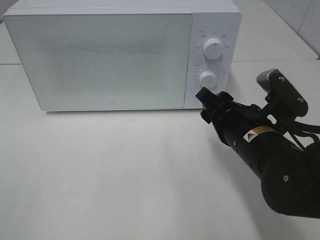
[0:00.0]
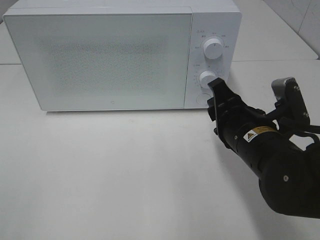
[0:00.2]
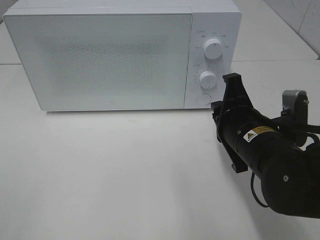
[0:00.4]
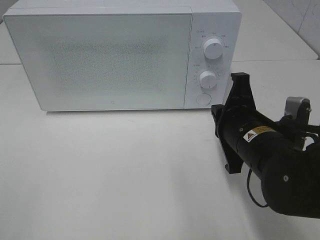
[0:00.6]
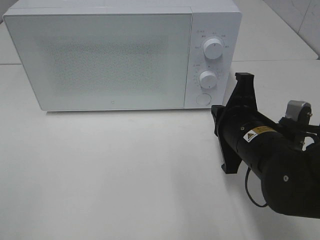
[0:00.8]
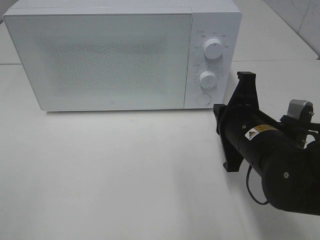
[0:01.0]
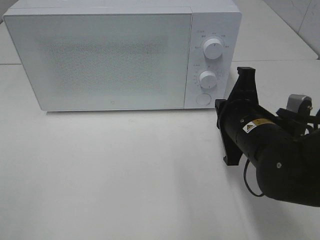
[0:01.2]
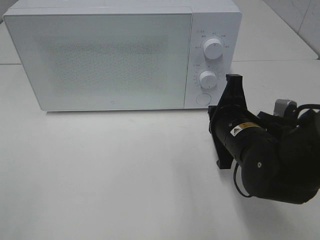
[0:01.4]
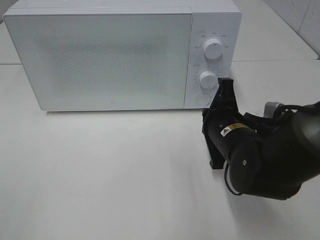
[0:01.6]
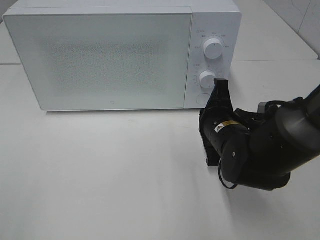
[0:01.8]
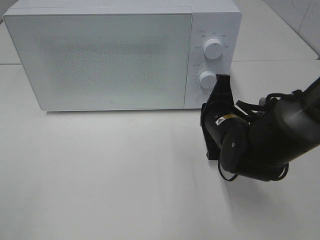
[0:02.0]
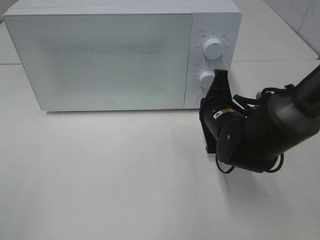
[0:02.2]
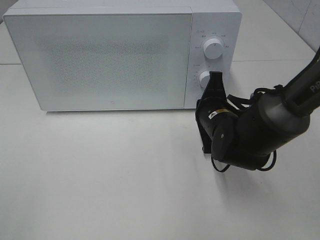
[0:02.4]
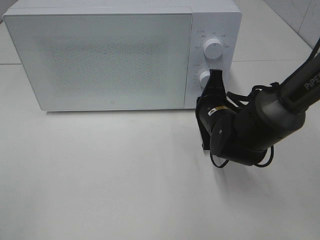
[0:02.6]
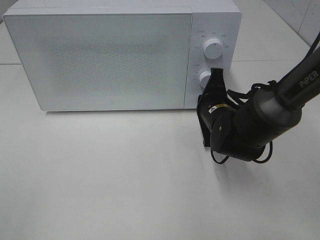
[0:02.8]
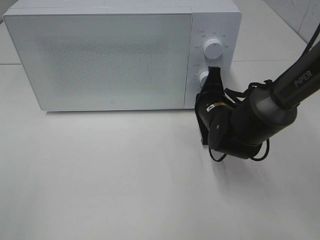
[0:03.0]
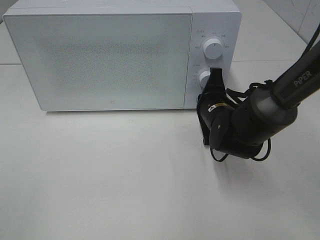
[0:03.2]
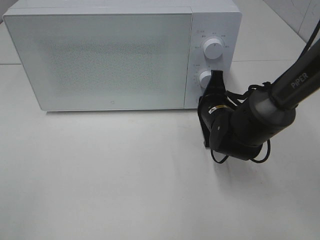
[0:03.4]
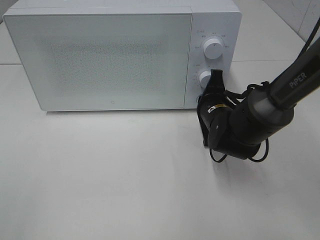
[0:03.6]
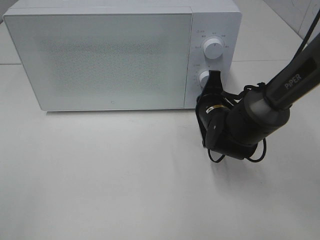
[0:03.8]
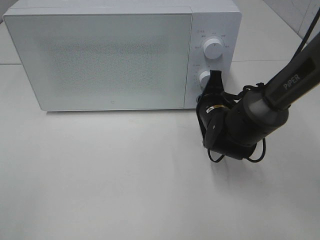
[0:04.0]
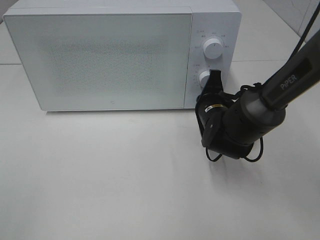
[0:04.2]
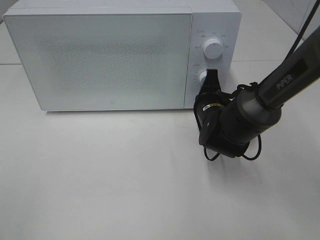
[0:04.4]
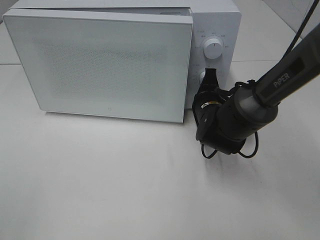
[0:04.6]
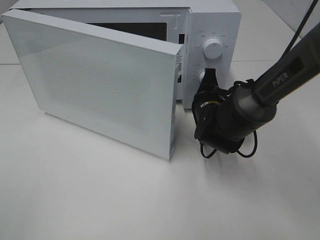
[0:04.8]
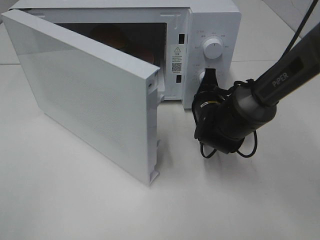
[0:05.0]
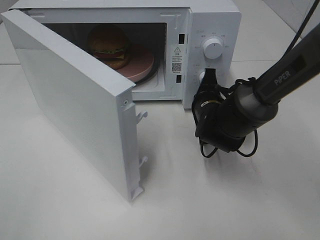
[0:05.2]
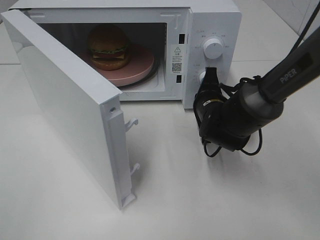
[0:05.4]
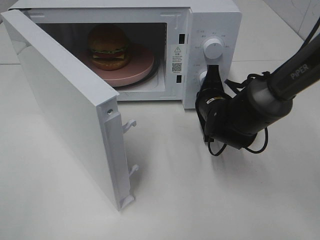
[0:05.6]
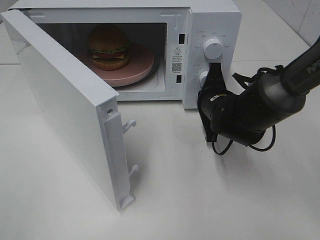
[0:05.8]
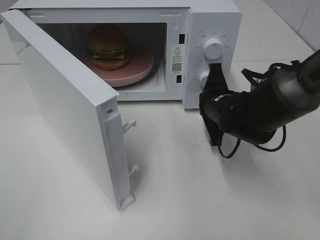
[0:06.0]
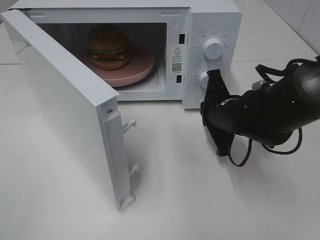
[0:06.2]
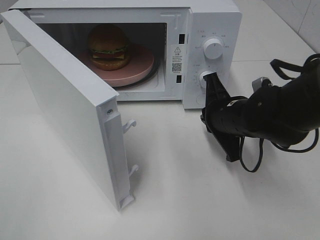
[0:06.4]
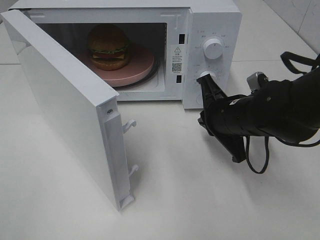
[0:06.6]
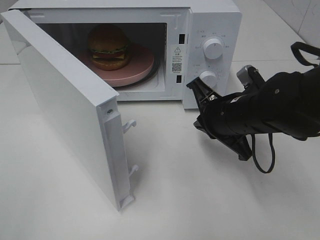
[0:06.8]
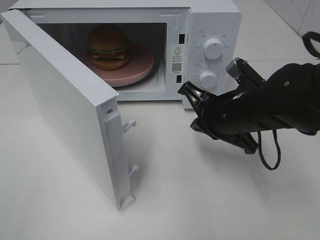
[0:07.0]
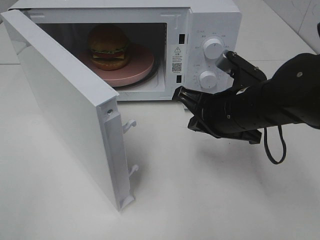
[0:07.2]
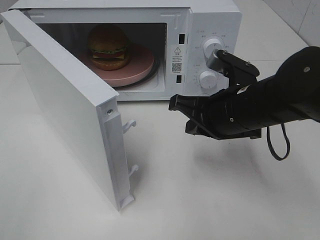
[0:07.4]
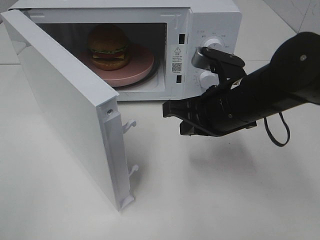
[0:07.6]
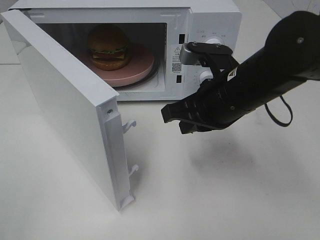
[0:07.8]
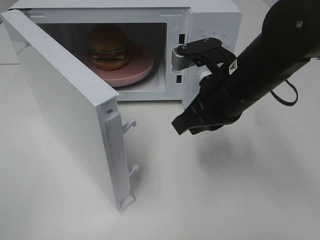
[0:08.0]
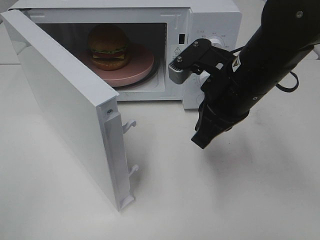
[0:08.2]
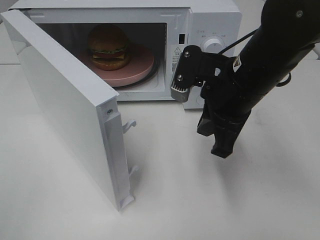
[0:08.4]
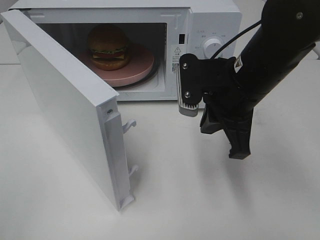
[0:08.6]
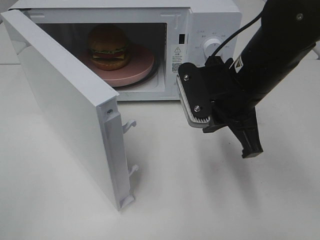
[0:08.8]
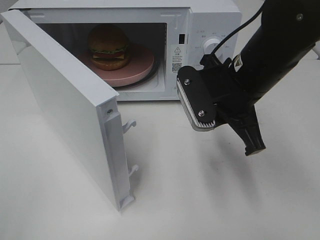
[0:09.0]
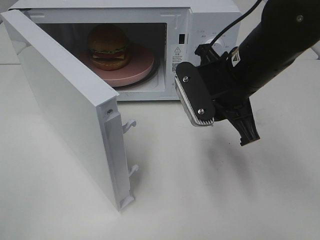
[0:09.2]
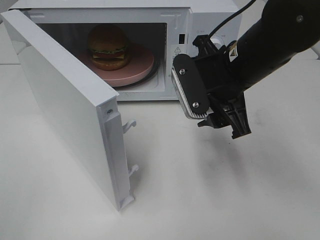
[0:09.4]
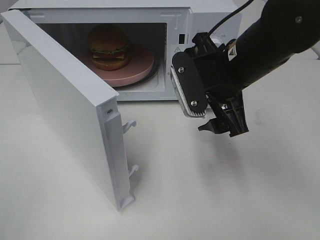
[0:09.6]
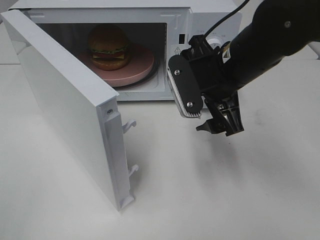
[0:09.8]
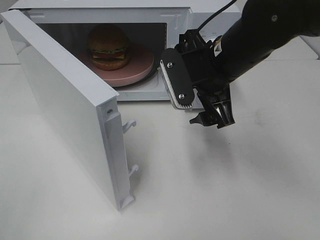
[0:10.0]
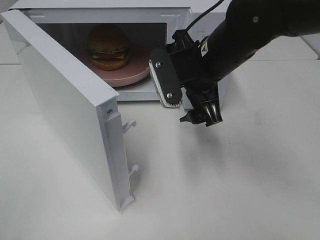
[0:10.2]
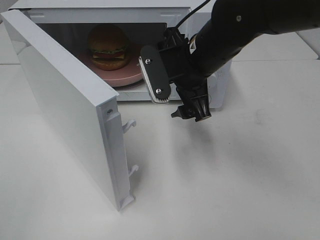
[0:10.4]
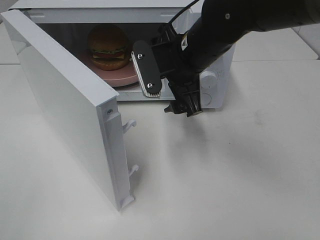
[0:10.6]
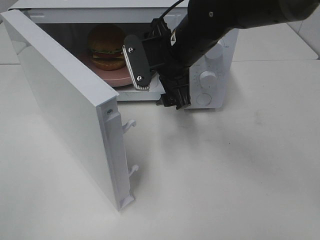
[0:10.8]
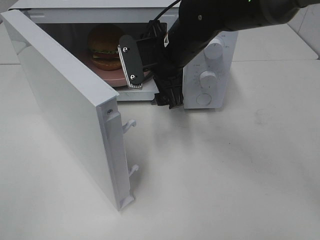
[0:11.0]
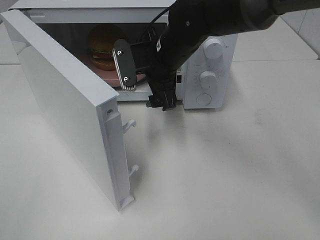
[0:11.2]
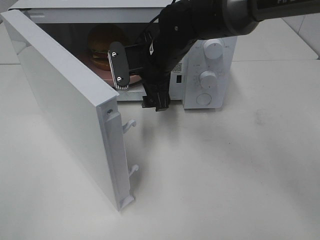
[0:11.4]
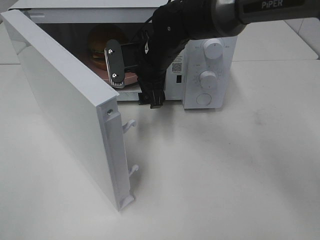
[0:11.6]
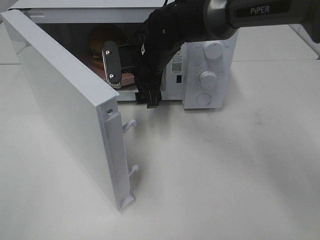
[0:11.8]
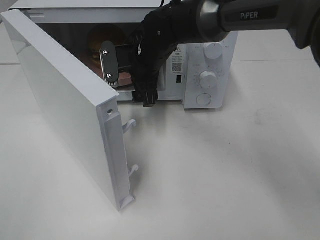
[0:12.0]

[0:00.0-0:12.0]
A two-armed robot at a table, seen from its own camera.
Task of the whole recording: Heat the burger.
Step, 0:00.0 to 0:06.0: Right hand: press the switch.
0:00.0 to 0:01.6: The right gripper closes up.
0:01.6 to 0:03.0: The right gripper is displaced forward by approximately 10 cm.
0:03.0 to 0:04.4: The grippers make only small movements.
0:06.0 to 0:07.6: The right gripper moves upward and backward, about 10 cm.
0:09.0 to 0:10.4: The right gripper heads forward, covering some 5 cm, and opens up.
0:10.4 to 0:12.0: The right gripper travels forward and to the left by approximately 10 cm.

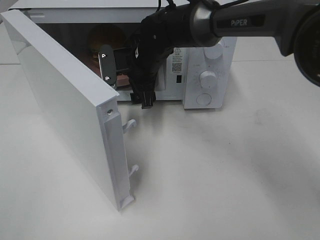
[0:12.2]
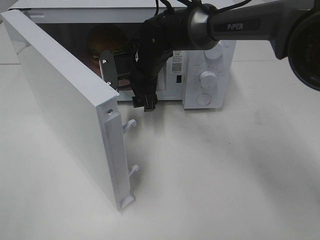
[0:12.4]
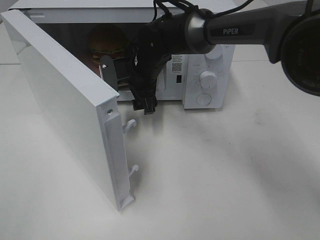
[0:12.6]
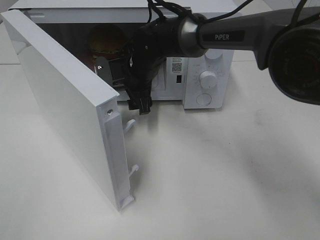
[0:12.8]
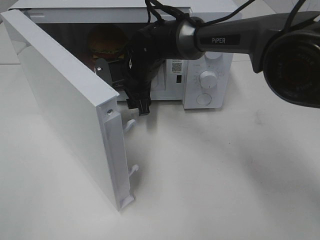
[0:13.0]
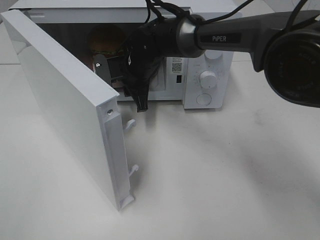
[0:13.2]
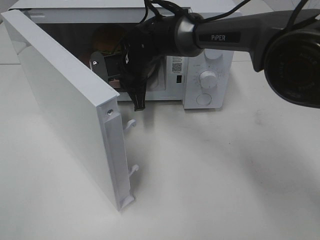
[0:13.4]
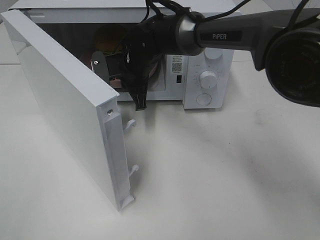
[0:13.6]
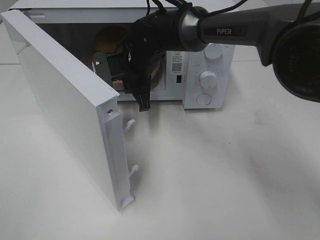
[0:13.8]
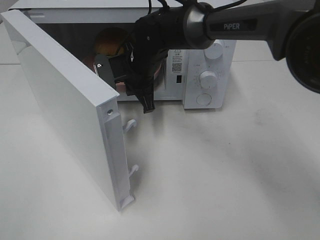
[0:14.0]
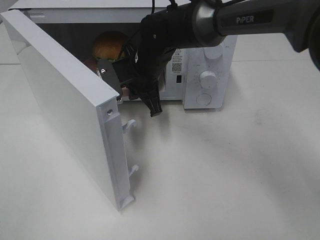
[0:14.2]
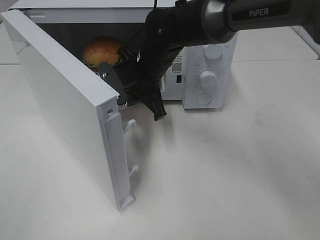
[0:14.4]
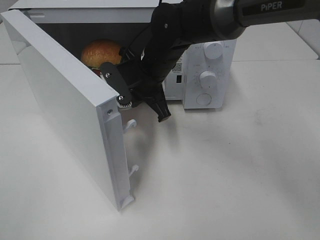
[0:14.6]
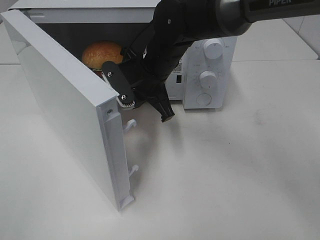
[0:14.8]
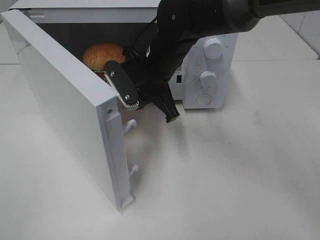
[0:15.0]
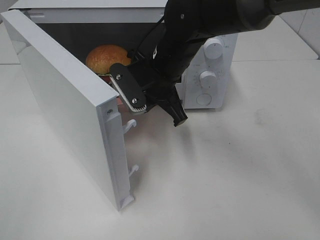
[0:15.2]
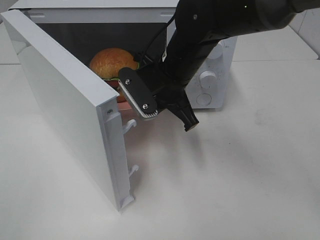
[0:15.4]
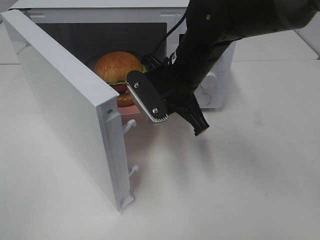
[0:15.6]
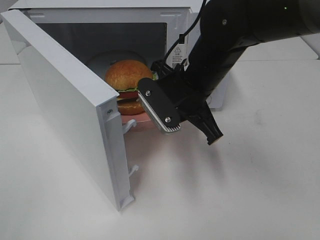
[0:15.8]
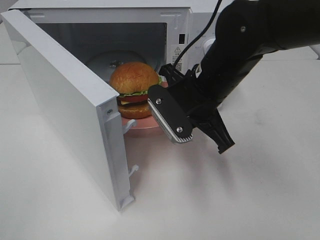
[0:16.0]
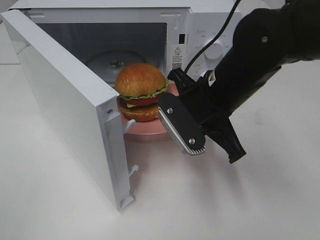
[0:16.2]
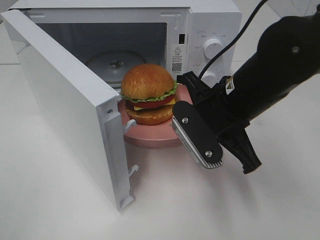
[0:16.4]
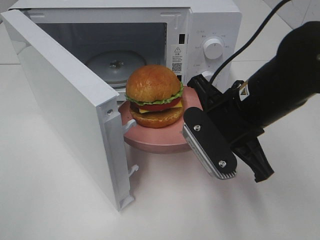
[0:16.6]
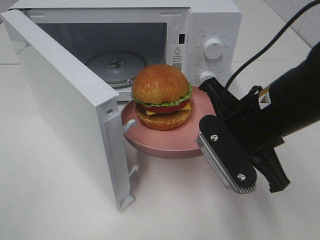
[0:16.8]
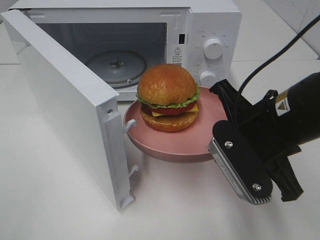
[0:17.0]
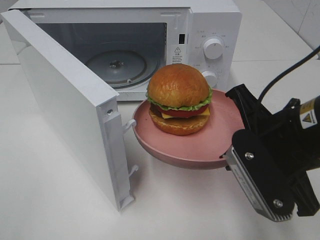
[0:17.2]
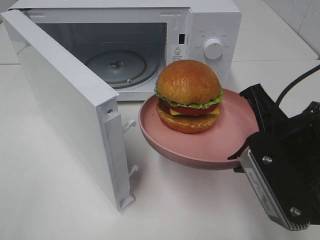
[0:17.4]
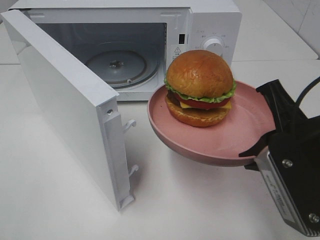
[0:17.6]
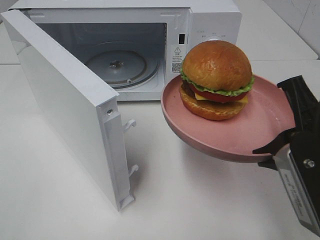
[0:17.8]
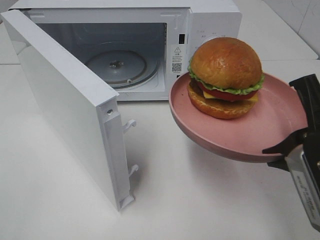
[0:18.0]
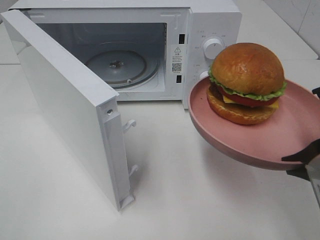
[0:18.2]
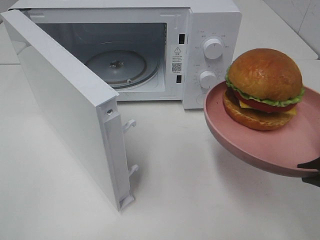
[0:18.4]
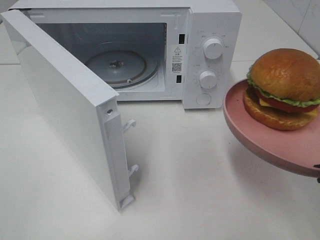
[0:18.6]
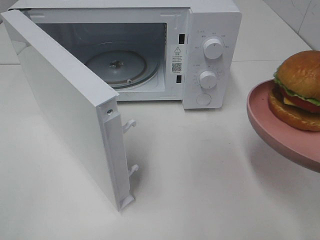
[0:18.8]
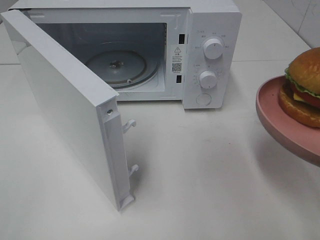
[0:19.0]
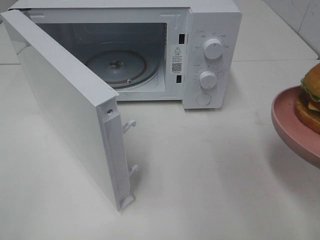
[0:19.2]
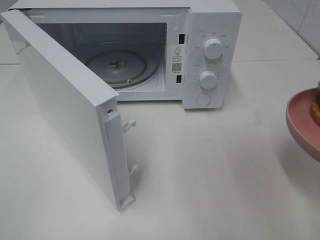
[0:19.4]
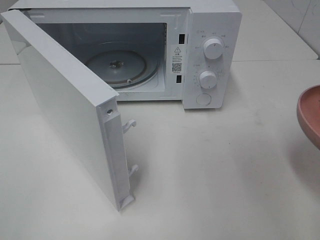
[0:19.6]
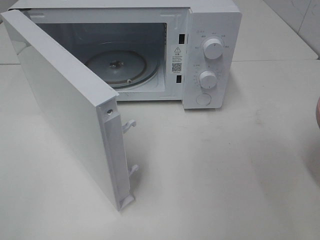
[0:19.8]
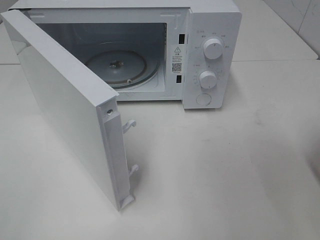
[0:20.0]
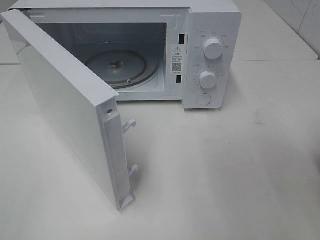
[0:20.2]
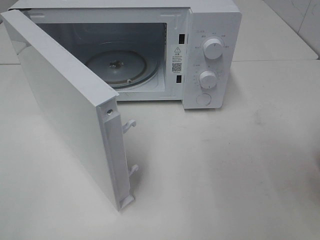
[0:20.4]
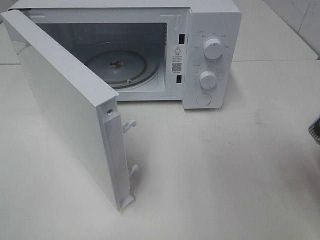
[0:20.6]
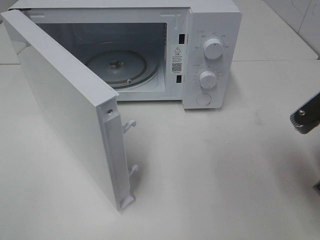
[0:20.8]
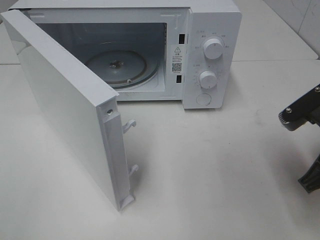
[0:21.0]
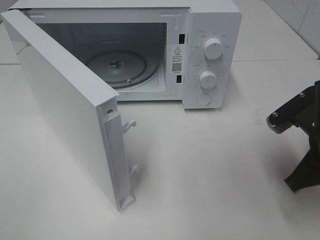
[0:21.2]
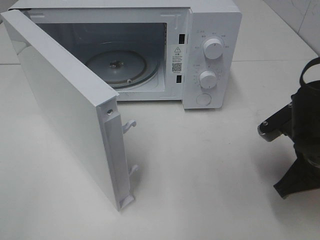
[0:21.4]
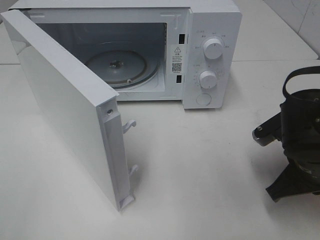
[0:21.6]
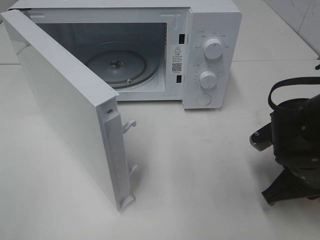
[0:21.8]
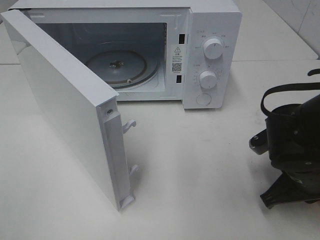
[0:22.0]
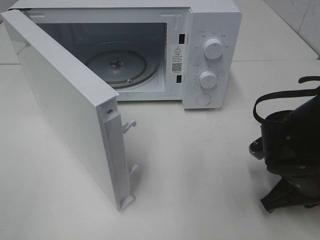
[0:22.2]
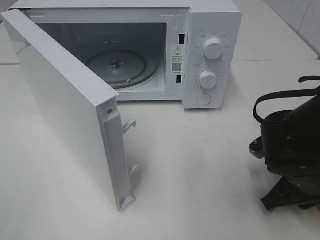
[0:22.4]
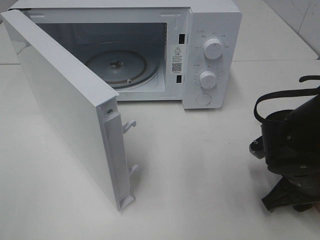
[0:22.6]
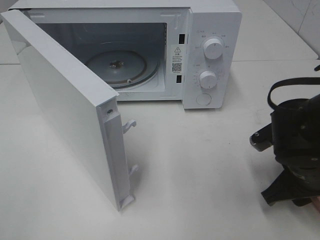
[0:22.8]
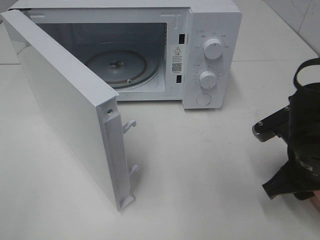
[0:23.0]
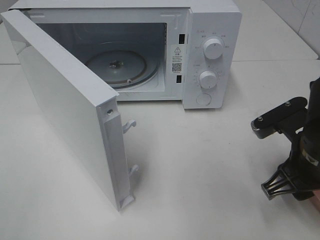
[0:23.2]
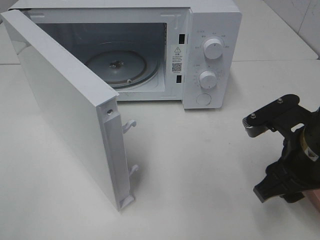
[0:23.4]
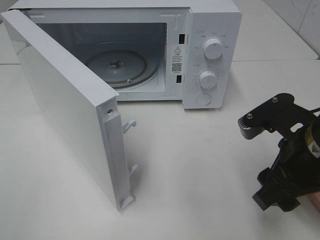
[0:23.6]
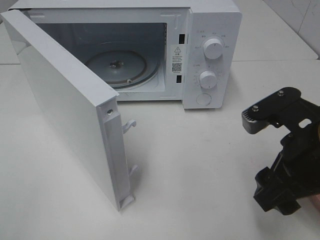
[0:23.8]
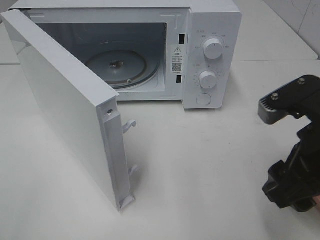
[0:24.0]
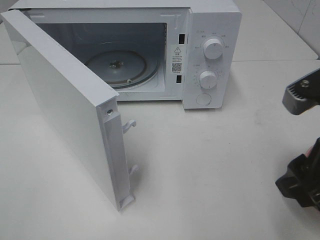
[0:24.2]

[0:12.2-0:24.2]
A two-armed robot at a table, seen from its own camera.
Task of the whole recording: Heat the burger.
Step, 0:13.6 to 0:22.4: Right hand: place the plate on the table.
0:12.2 to 0:13.8: The right gripper closes.
0:13.8 to 0:15.2: The right gripper heads backward, covering about 10 cm.
0:15.2 to 0:16.6: The right gripper travels backward and to the right by about 15 cm.
0:16.6 to 0:18.2: The right gripper shifts about 15 cm backward and to the right.
0:18.2 to 0:19.8: The right gripper moves to the right, some 5 cm.
0:19.8 to 0:21.2: The right gripper moves forward and to the left, about 10 cm.
0:21.2 to 0:22.6: The right gripper goes approximately 5 cm downward, and opens up.
0:22.6 to 0:24.2: The right gripper is displaced upward and backward by approximately 15 cm.
